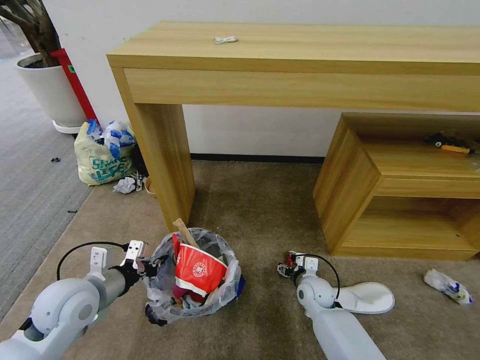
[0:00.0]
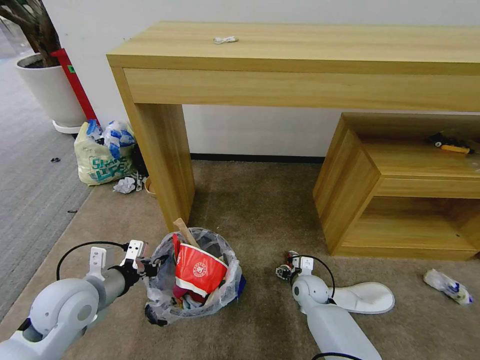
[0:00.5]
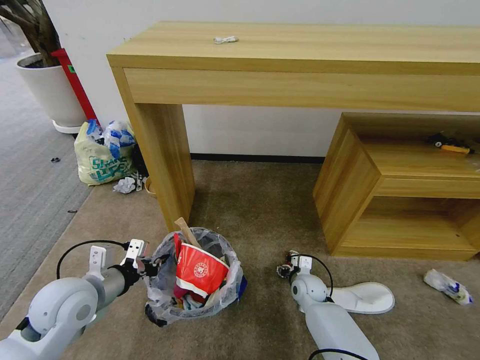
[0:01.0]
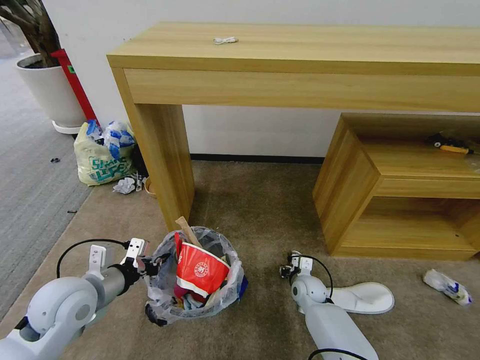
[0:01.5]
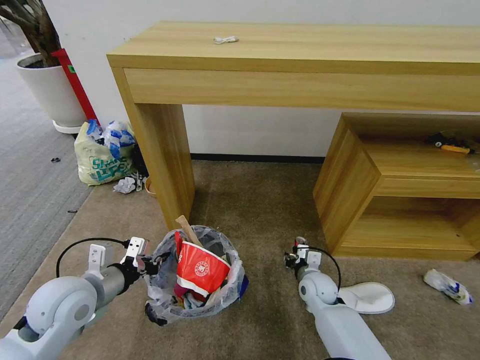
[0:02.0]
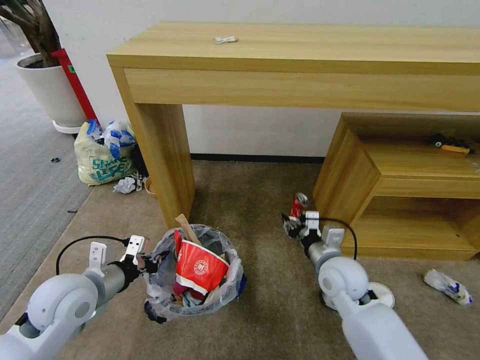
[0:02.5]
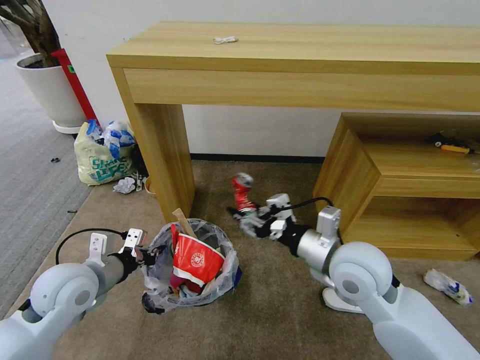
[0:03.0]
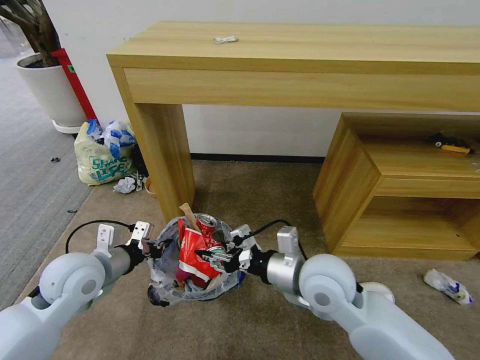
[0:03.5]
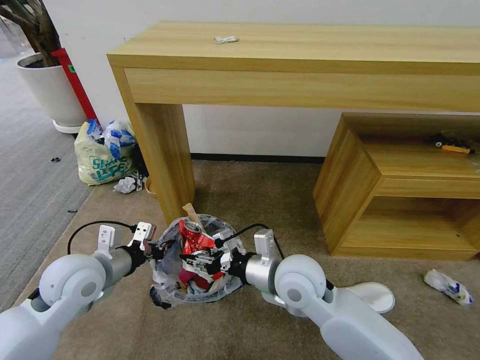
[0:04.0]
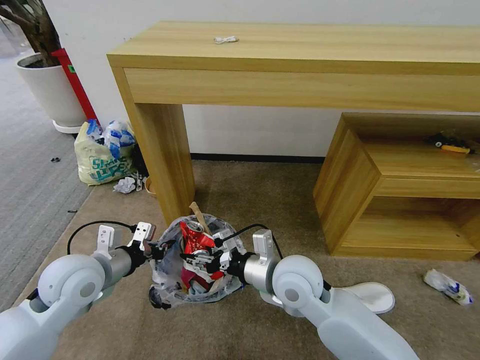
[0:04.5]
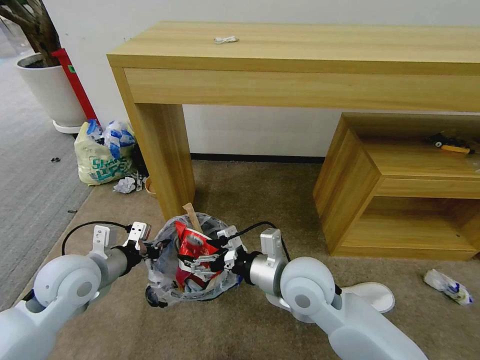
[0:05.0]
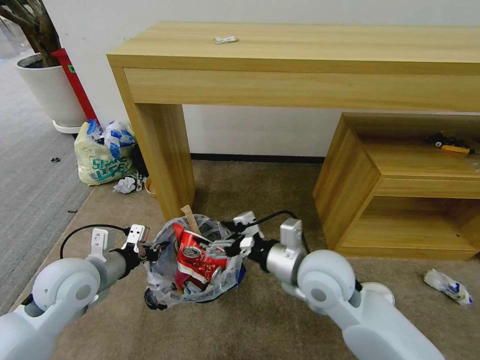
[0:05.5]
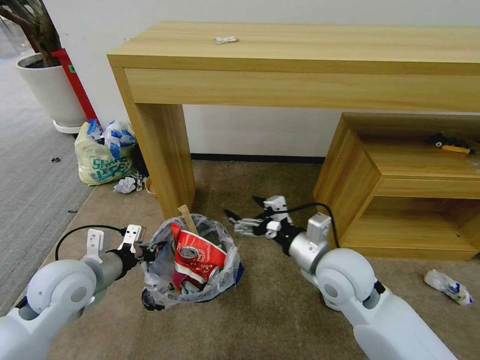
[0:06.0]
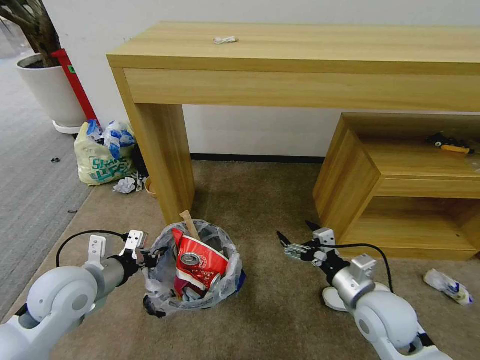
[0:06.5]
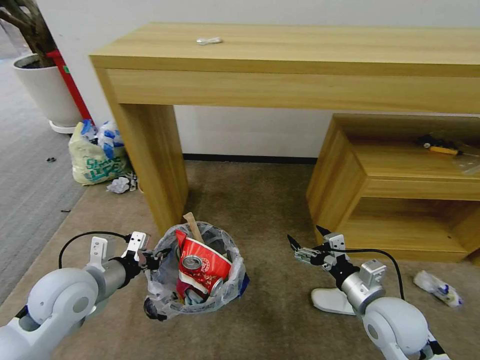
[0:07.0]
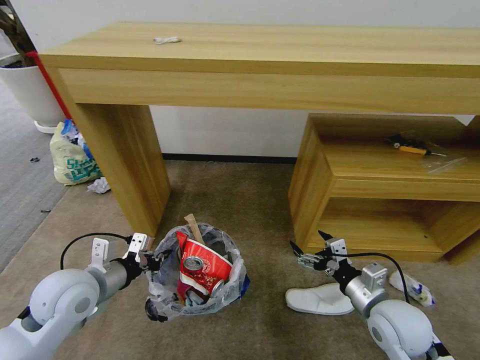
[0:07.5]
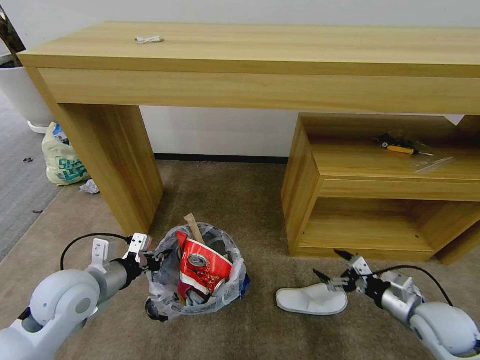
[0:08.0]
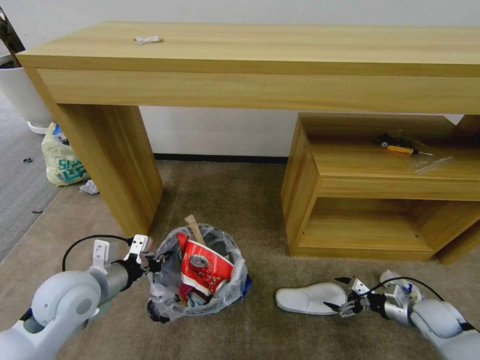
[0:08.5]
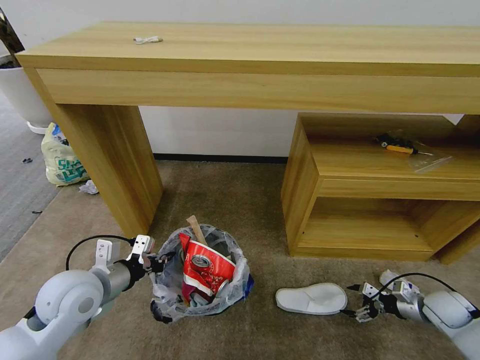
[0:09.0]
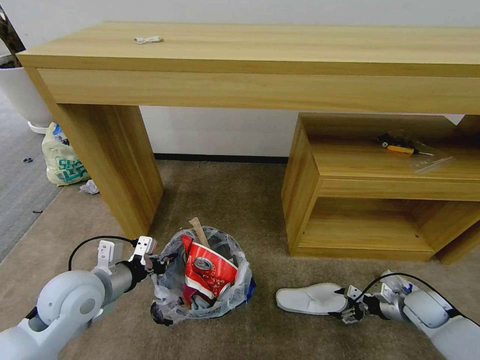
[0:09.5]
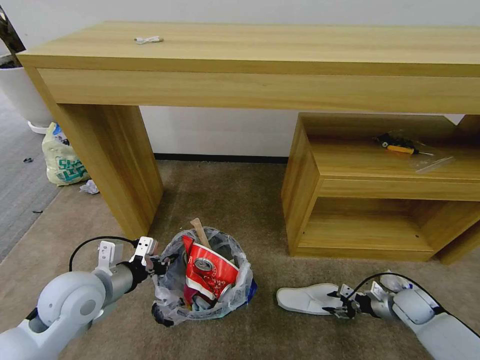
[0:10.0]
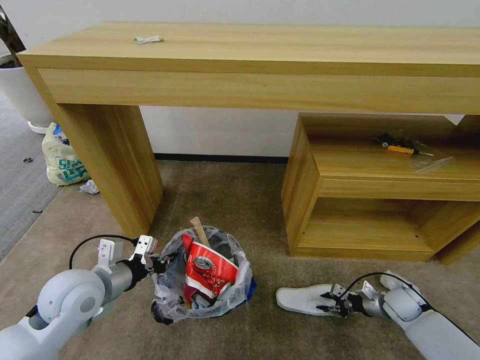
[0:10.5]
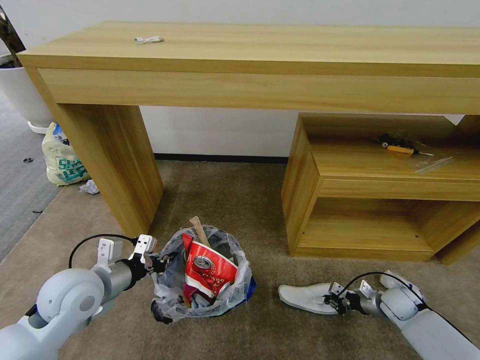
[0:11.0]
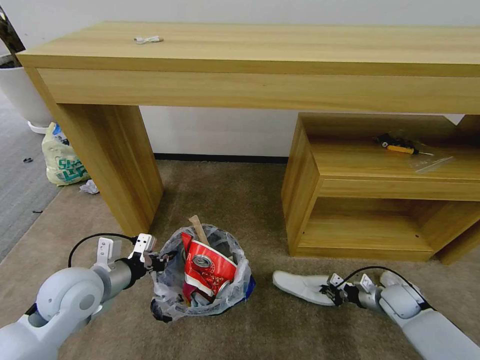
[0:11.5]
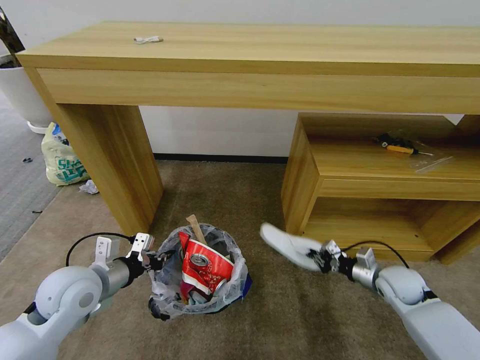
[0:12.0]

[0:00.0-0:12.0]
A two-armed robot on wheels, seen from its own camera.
Task of the whole recording: Pick up the trash bin and place the garbage on the floor into it.
0:00.0 to 0:02.0: The right gripper closes its fingers.
0:02.0 to 0:04.0: The right gripper is displaced upward and to the left by some 25 cm.
0:04.0 to 0:06.0: The right gripper is displaced to the right by approximately 10 cm, and opens.
0:06.0 to 0:08.0: The right gripper is displaced to the right and downward by about 25 cm.
0:08.0 to 0:10.0: The right gripper moves downward, forward and to the right, approximately 15 cm, and closes.
0:10.0 to 0:12.0: The right gripper is displaced upward and to the left by approximately 10 cm, and closes its fingers.

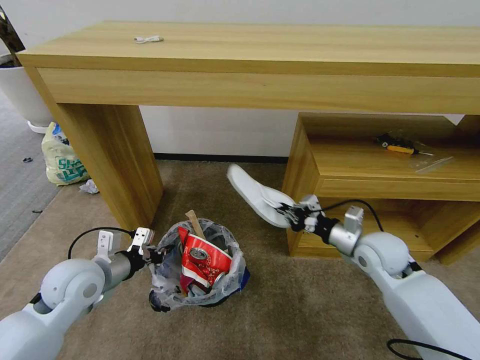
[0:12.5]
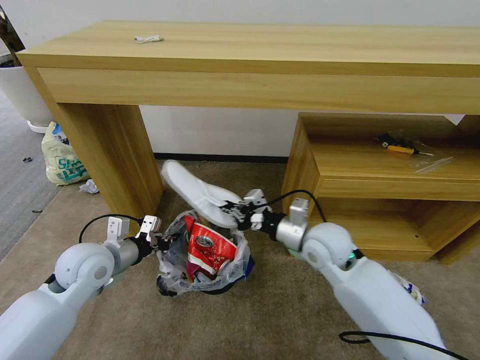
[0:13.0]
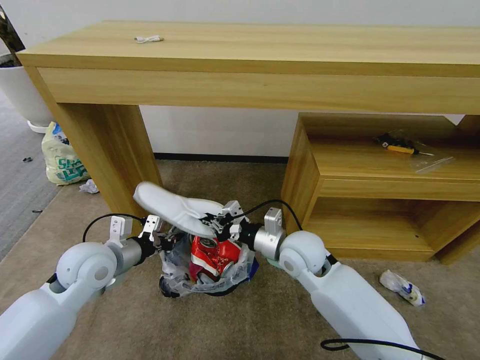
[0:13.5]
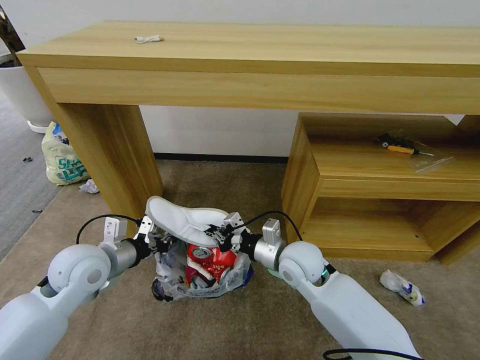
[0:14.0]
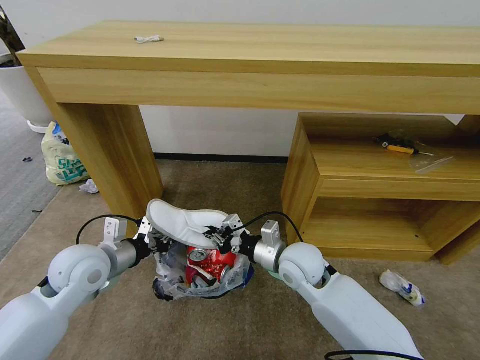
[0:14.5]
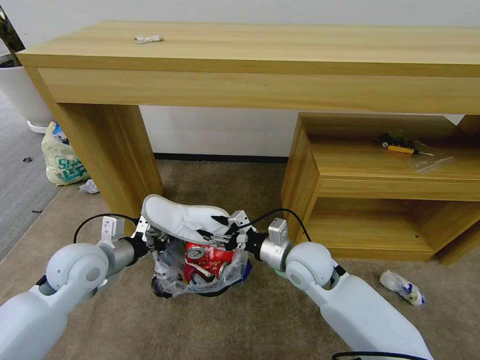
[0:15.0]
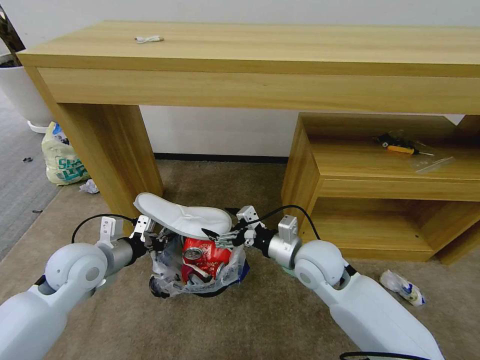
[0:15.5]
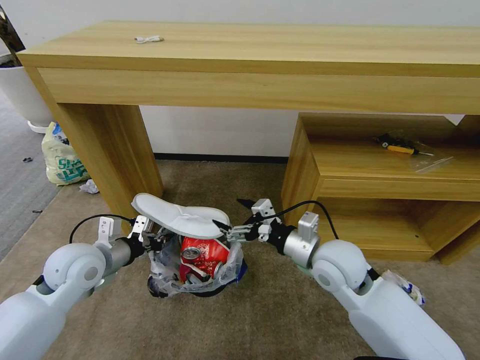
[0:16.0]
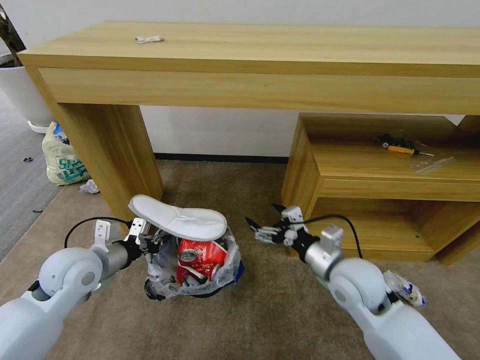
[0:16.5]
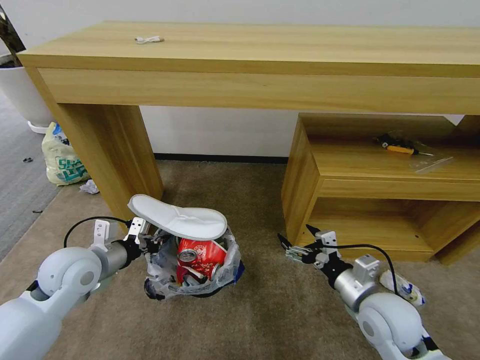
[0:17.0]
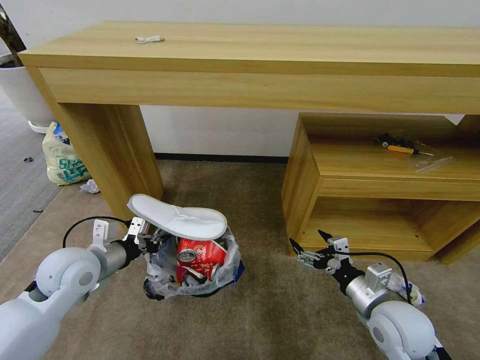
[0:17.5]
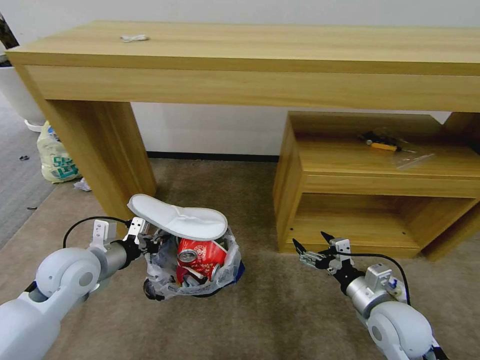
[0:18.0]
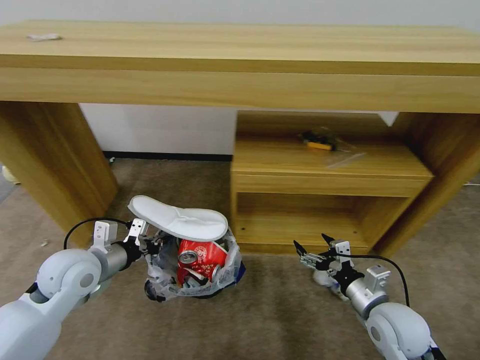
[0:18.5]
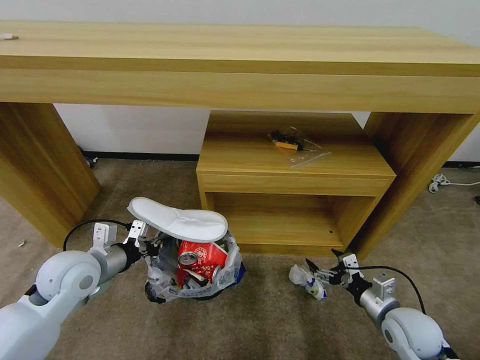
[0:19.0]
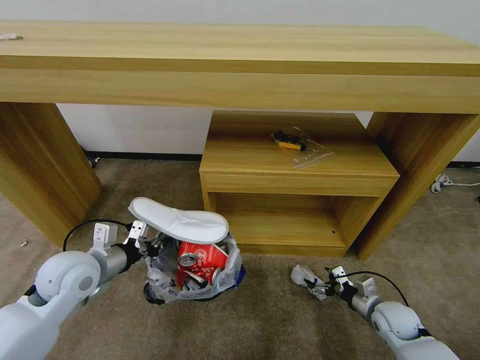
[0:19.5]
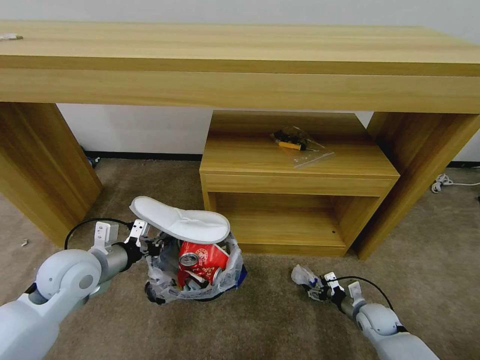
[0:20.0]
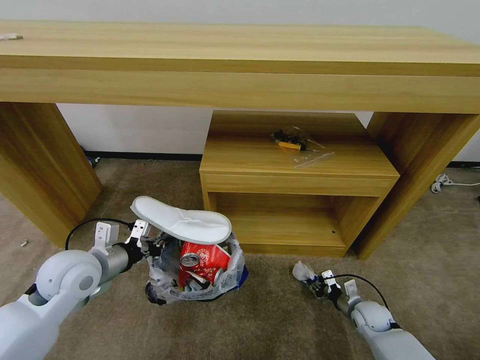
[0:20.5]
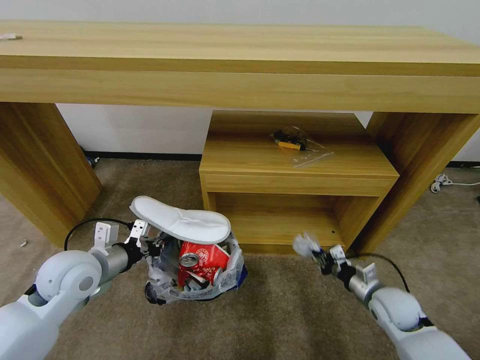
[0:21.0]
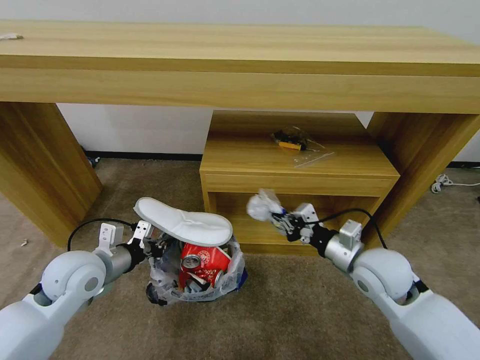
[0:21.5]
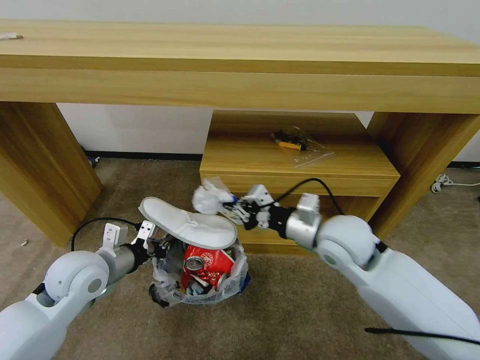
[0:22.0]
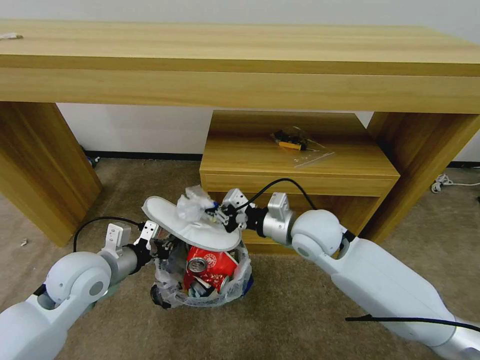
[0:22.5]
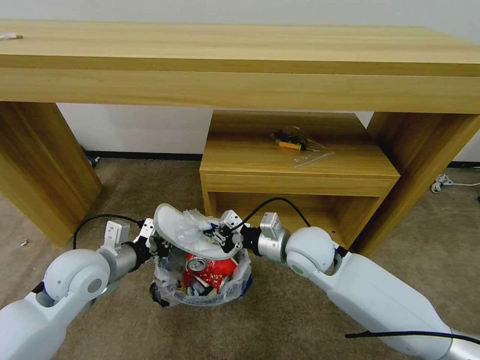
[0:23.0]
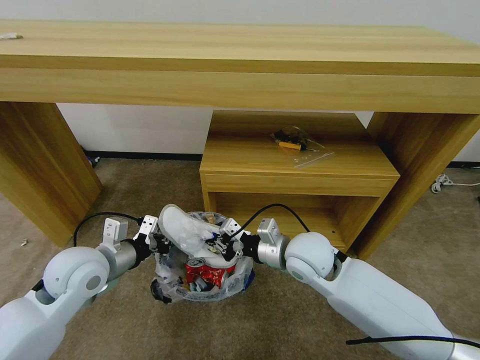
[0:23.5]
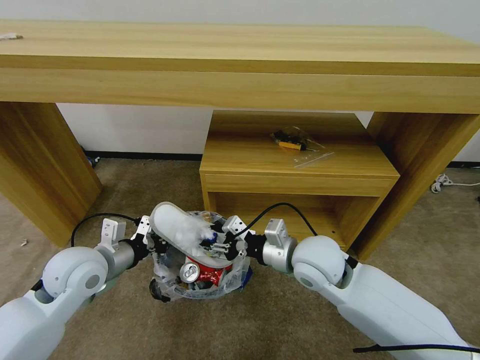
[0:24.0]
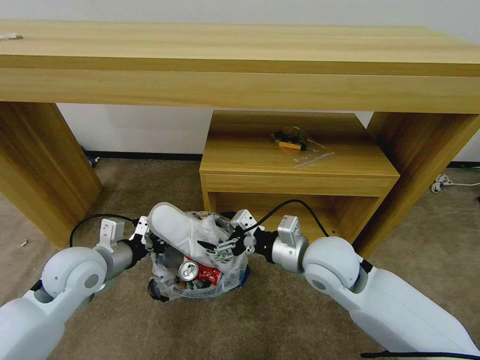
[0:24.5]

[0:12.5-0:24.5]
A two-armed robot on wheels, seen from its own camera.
Task of the whole recording: Pick up the trash bin and place the garbage on the floor into it.
0:12.5 to 0:14.5: The right gripper heads to the left, covering about 15 cm.
0:14.5 to 0:16.5: The right gripper travels to the right by some 10 cm, and opens its fingers.
0:16.5 to 0:18.5: The right gripper moves to the right, backward and downward, approximately 10 cm.
0:18.5 to 0:20.5: The right gripper travels downward by some 20 cm, and closes up.
0:20.5 to 0:22.5: The right gripper goes some 40 cm upward and to the left.
0:22.5 to 0:24.5: The right gripper shifts roughly 5 cm backward, and opens.

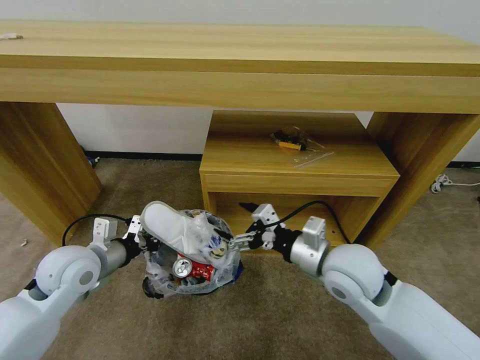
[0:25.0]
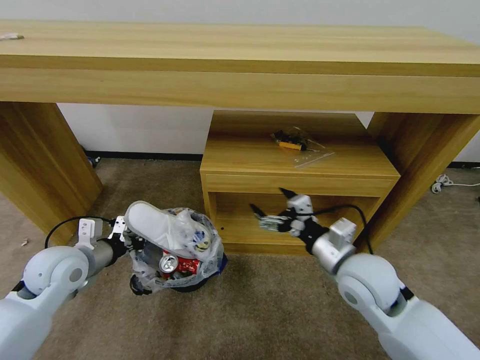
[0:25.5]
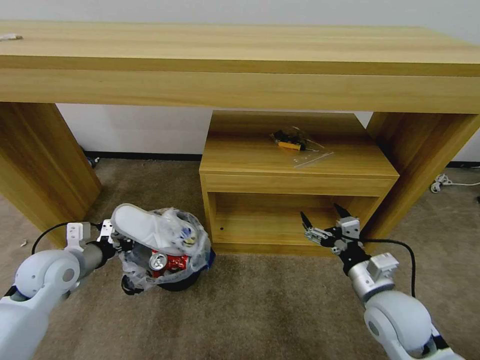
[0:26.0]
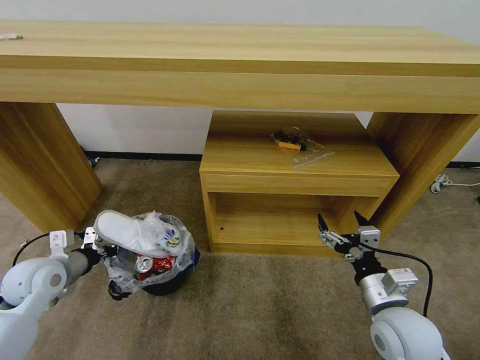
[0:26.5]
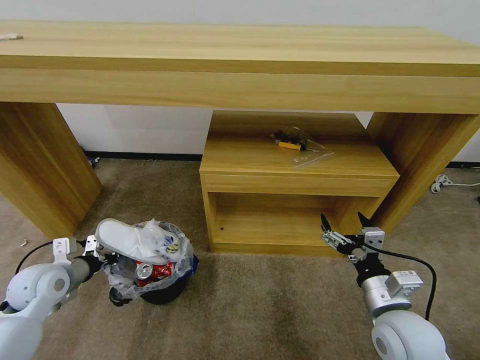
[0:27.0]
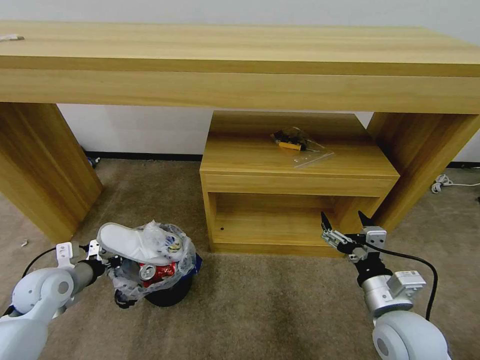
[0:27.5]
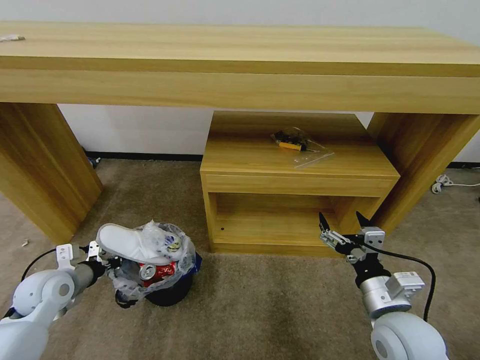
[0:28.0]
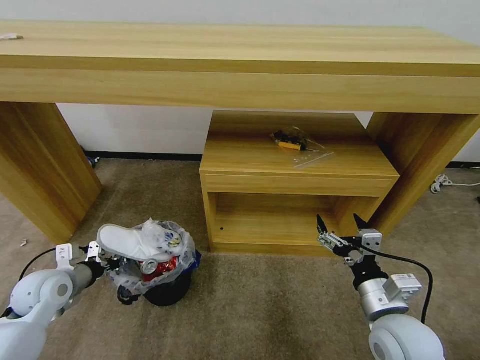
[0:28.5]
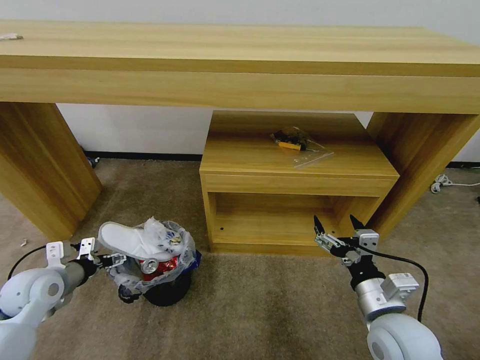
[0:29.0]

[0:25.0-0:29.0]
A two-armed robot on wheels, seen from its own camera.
Task of the whole recording: Pick up the trash bin and place the garbage on the floor into it.
0:25.0 to 0:27.0: The right gripper travels to the right, backward and downward by approximately 15 cm. The left gripper shifts approximately 10 cm to the left and downward.
0:27.0 to 0:29.0: The left gripper opens up.
